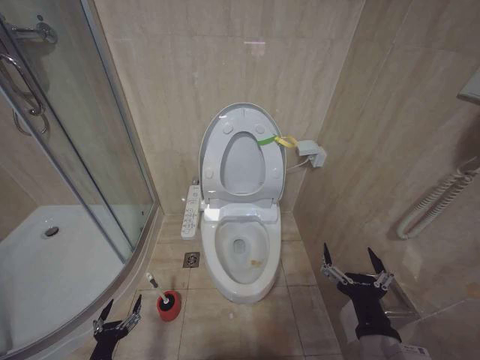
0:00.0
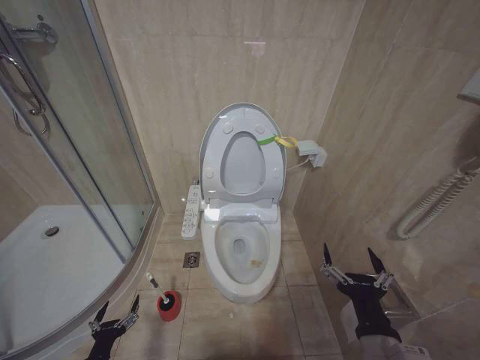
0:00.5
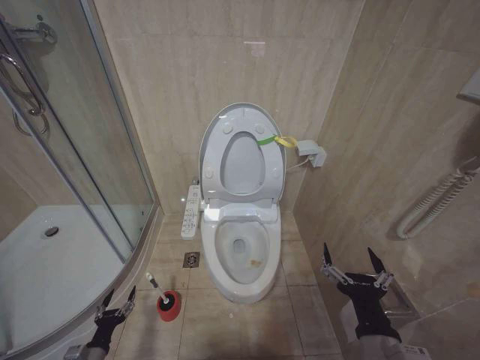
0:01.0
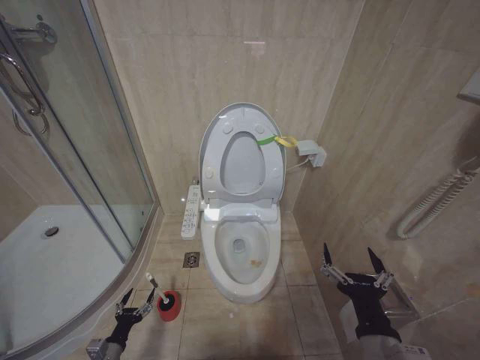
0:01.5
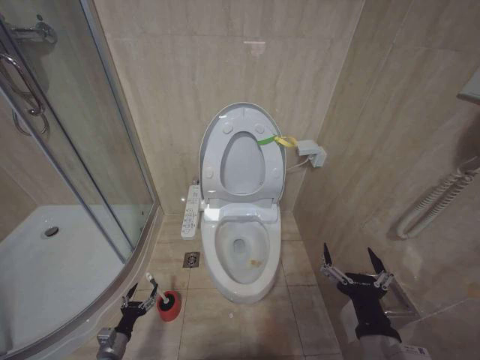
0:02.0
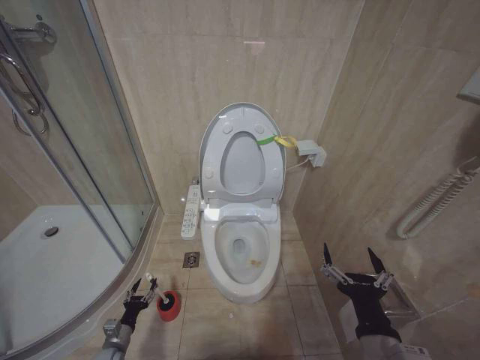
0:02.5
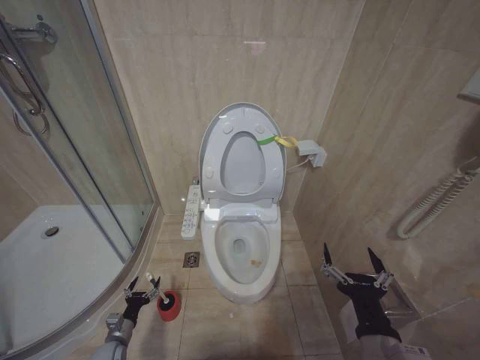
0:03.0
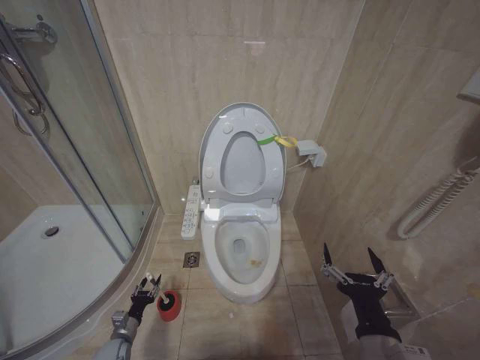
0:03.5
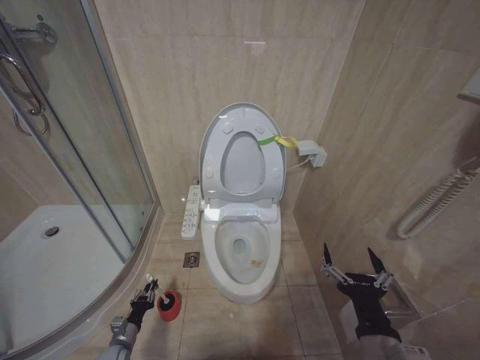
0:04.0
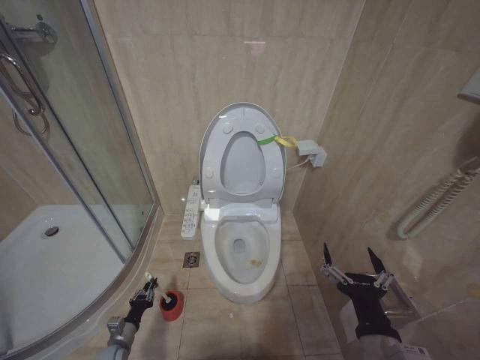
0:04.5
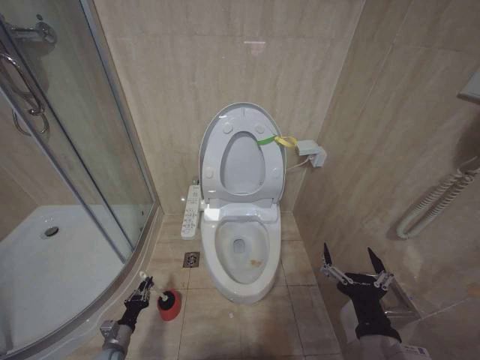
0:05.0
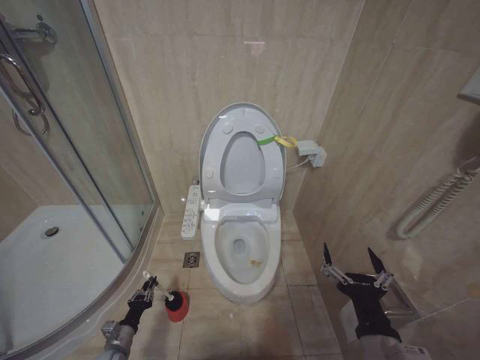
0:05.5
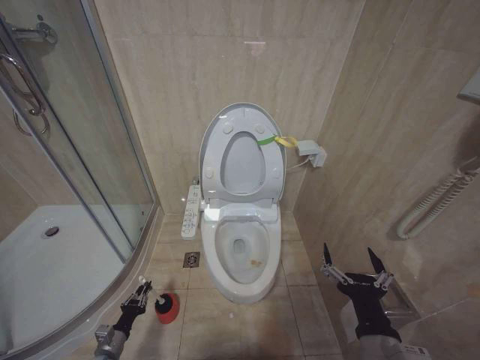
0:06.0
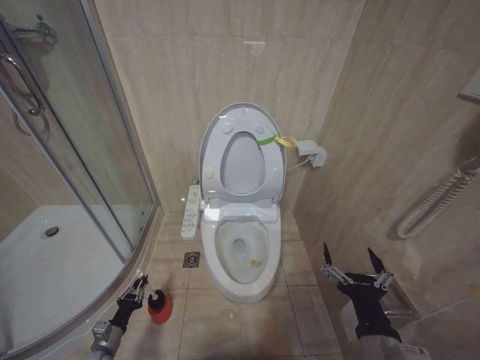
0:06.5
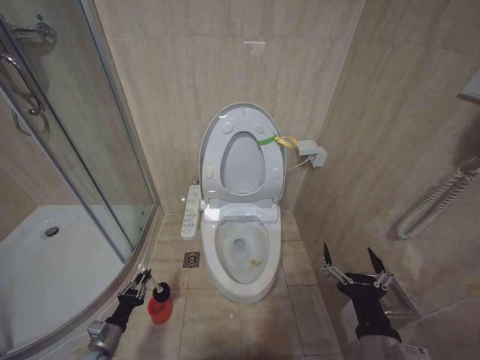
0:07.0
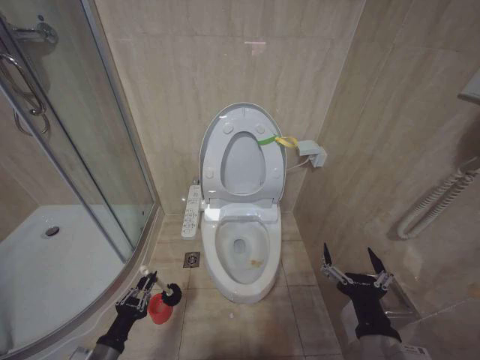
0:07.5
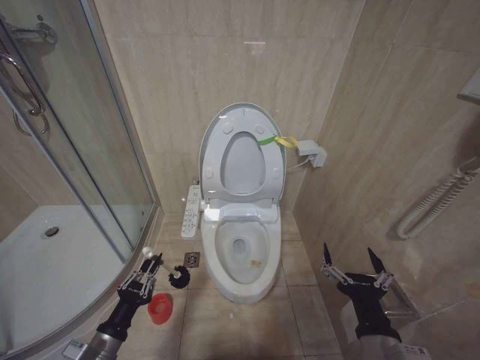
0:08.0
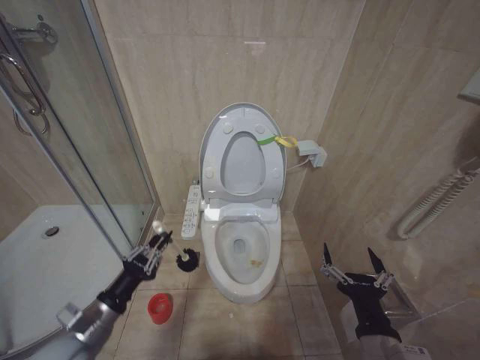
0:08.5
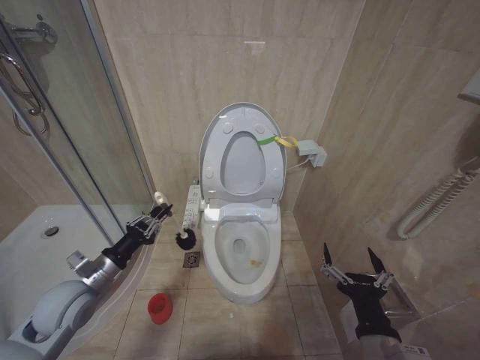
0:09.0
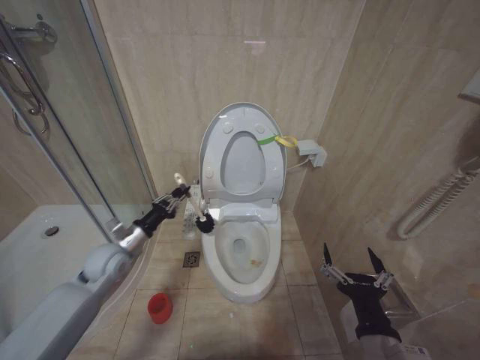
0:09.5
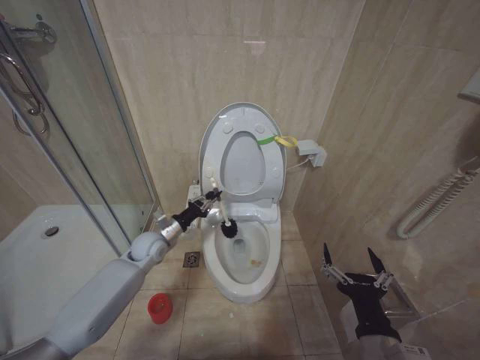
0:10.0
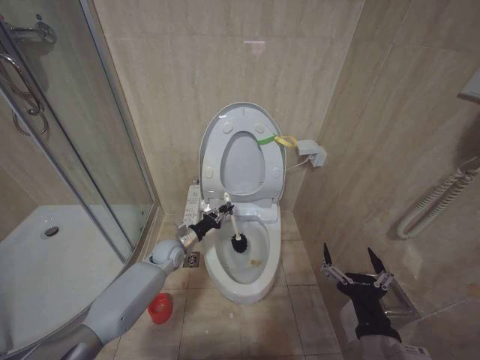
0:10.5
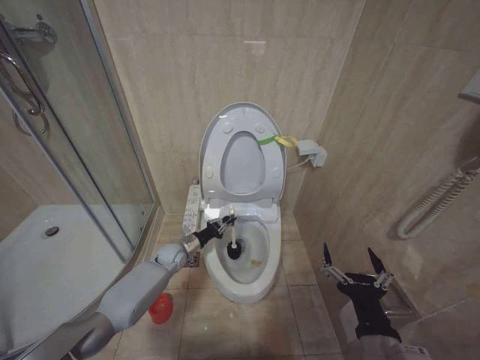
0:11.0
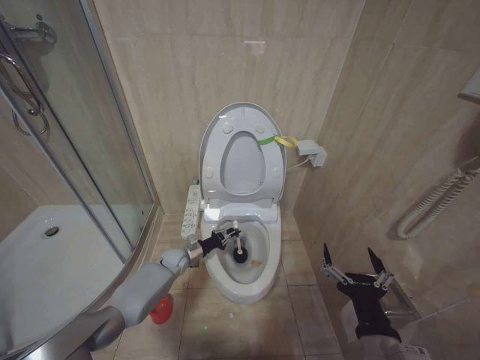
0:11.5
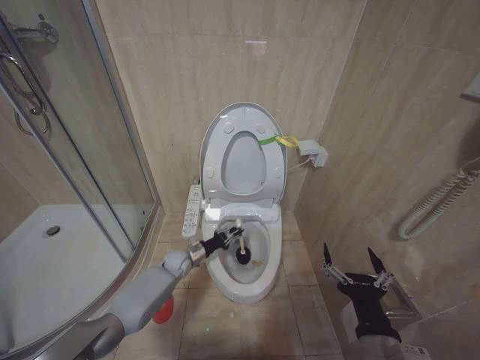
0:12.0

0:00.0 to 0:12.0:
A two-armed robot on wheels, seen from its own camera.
Task of the whole recording: Open the toilet lid, clean the toilet bowl with a toilet brush, close the toilet lid, and flush.
0:00.0 to 0:02.0: The left gripper travels downward and forward by roughly 15 cm.
0:02.0 to 0:04.0: The left gripper closes up.
0:04.0 to 0:06.0: The grippers make only small movements.
0:06.0 to 0:08.0: The left gripper travels upward by approximately 20 cm.
0:08.0 to 0:10.0: The left gripper shifts roughly 30 cm forward.
0:10.0 to 0:12.0: The left gripper travels downward by roughly 15 cm.

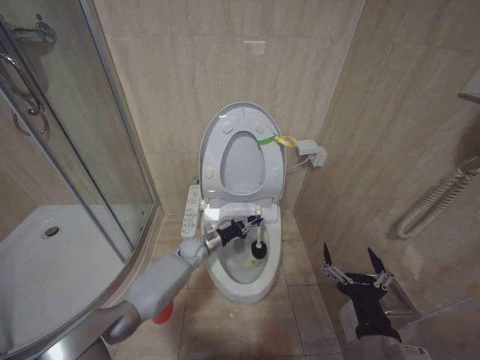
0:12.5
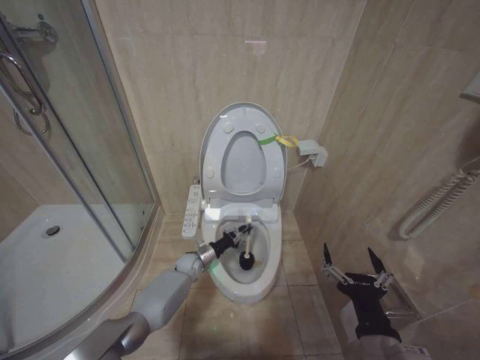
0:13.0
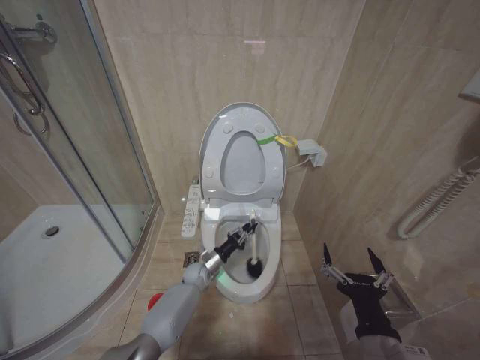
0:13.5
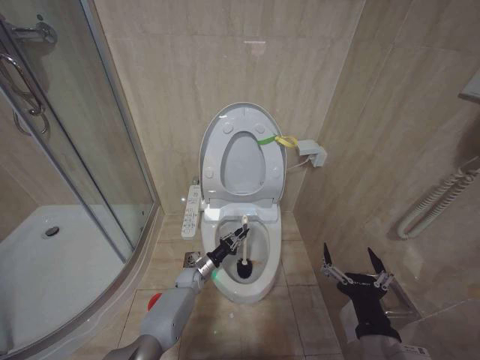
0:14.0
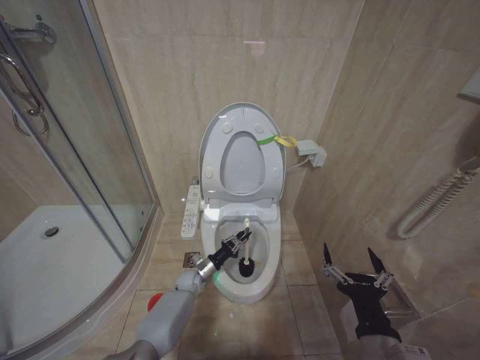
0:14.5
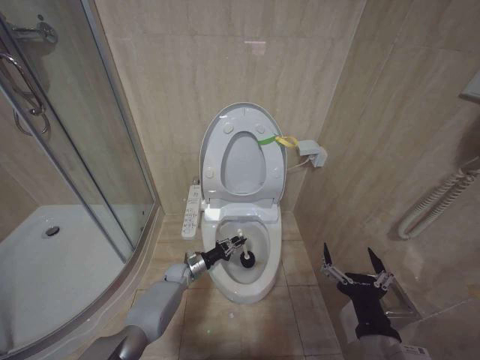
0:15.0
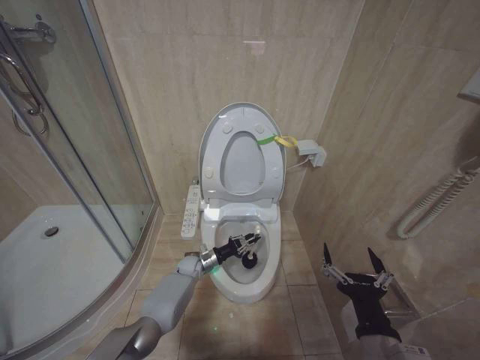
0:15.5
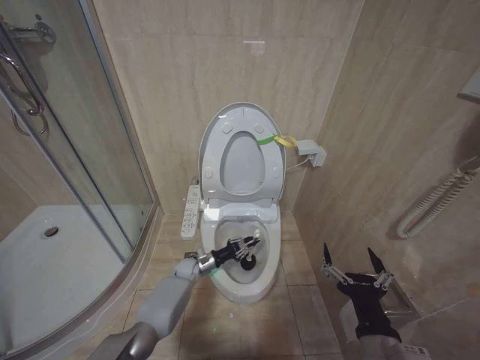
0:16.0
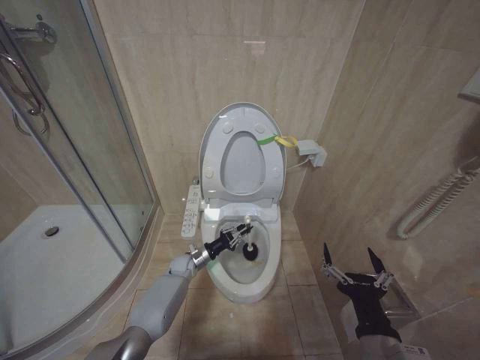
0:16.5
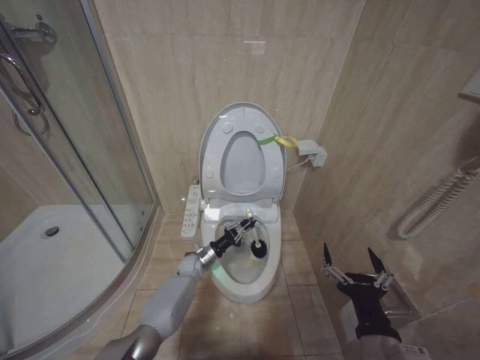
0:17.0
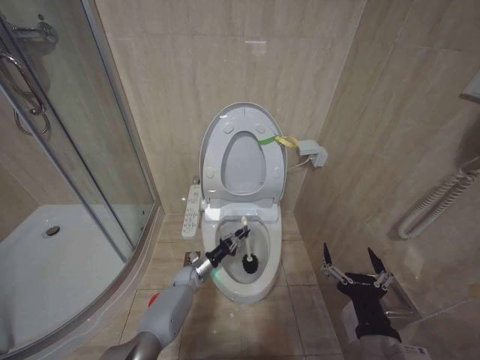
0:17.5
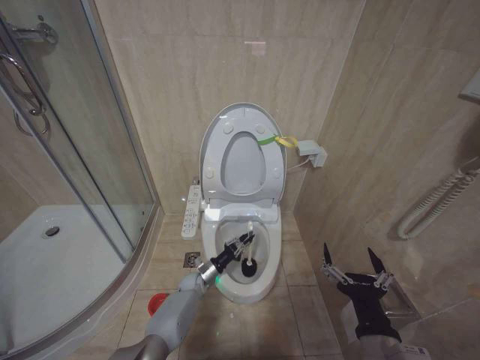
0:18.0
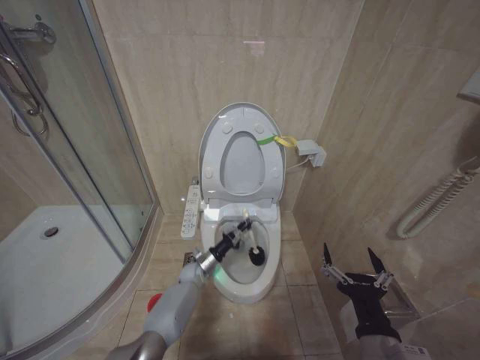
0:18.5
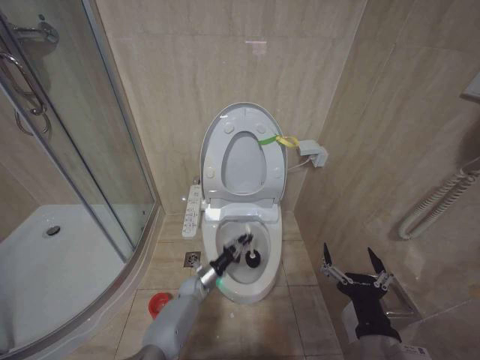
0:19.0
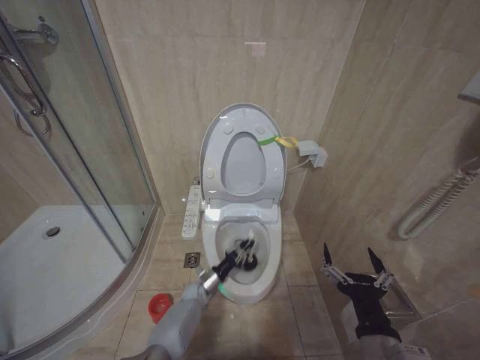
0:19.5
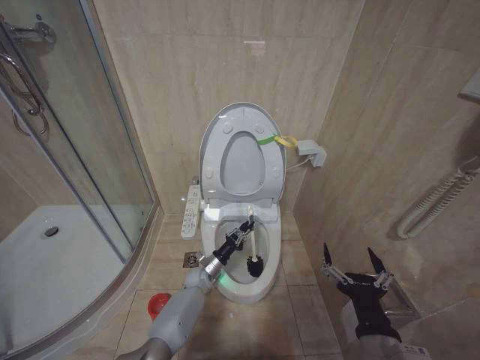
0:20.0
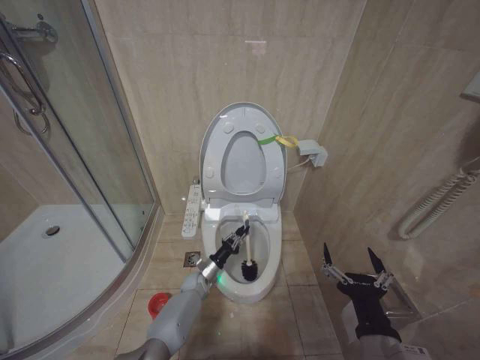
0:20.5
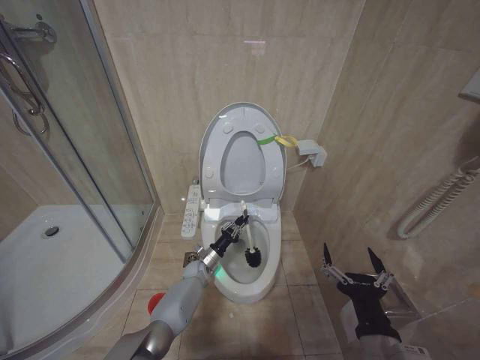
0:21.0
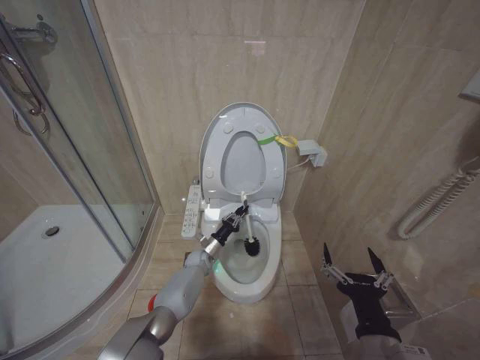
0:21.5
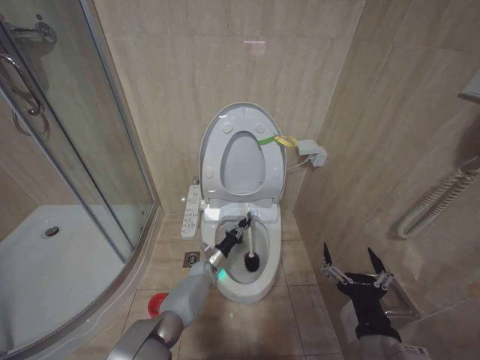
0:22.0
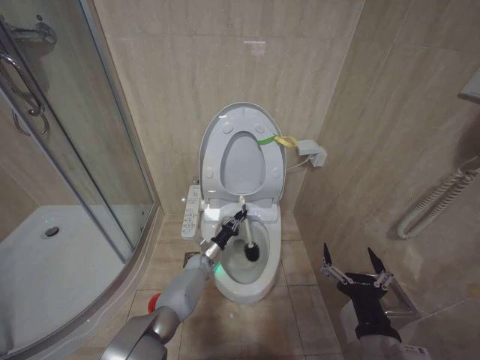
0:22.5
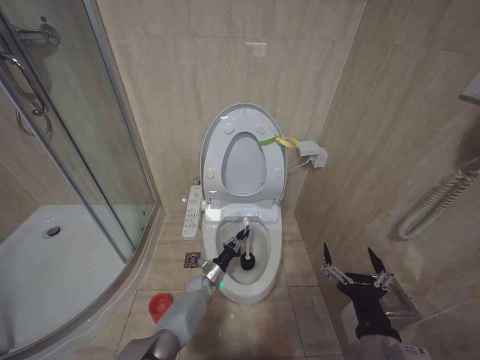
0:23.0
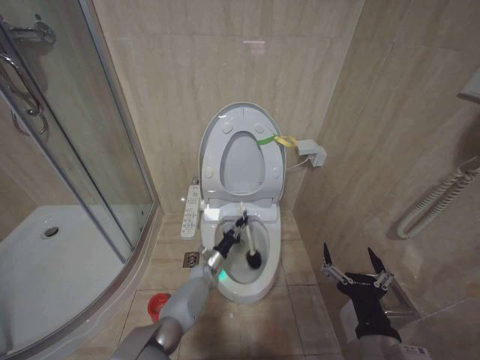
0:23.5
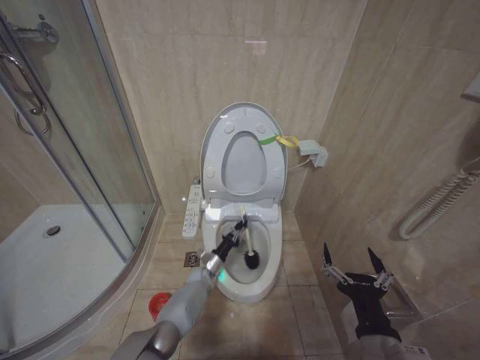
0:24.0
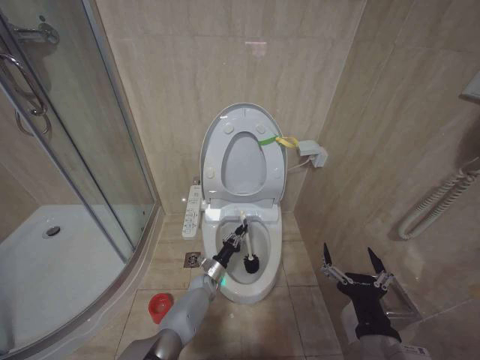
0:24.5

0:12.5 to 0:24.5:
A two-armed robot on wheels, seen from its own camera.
Task of the whole recording: Open the toilet lid, clean the toilet bowl with a toilet brush, close the toilet lid, and flush.
0:12.5 to 0:14.5: The left gripper moves downward and backward, roughly 15 cm.
0:14.5 to 0:16.5: The left gripper ends up some 5 cm from where it was.
0:18.5 to 0:20.5: The left gripper shifts roughly 5 cm downward.
0:20.5 to 0:22.5: The left gripper goes some 5 cm forward.
0:22.5 to 0:24.5: The left gripper changes place by some 5 cm.

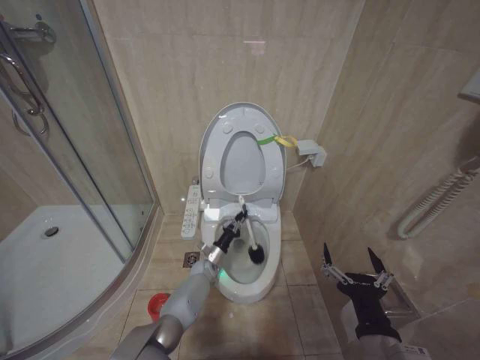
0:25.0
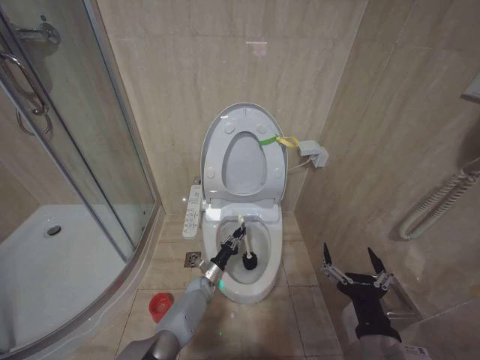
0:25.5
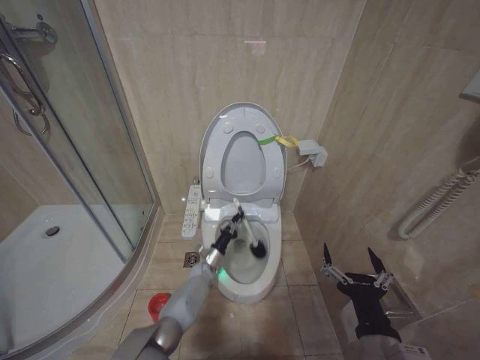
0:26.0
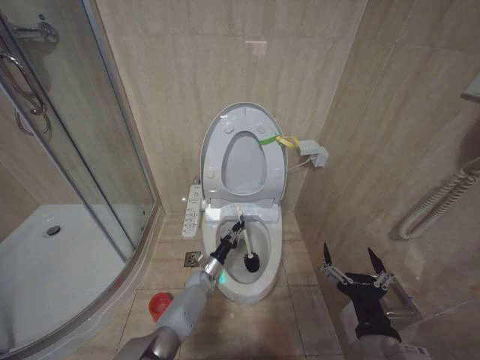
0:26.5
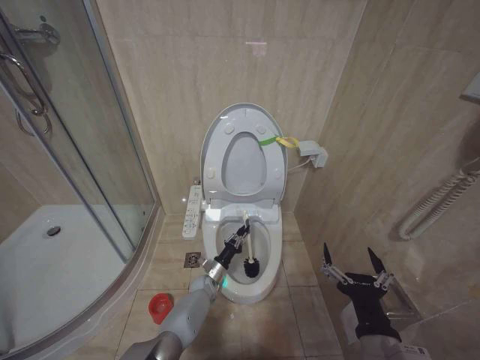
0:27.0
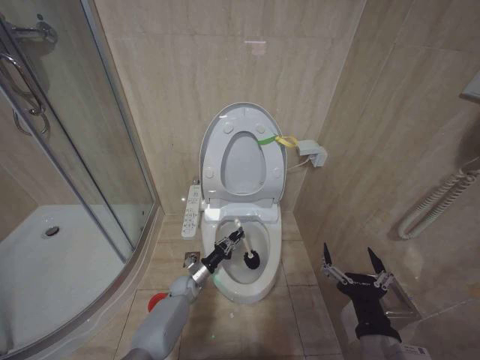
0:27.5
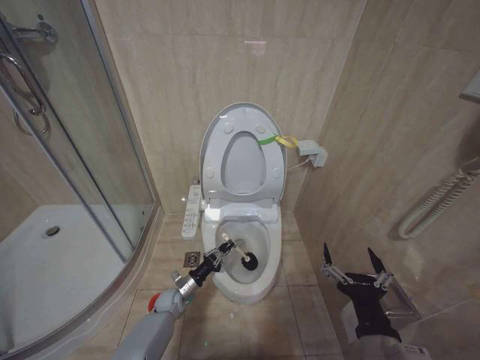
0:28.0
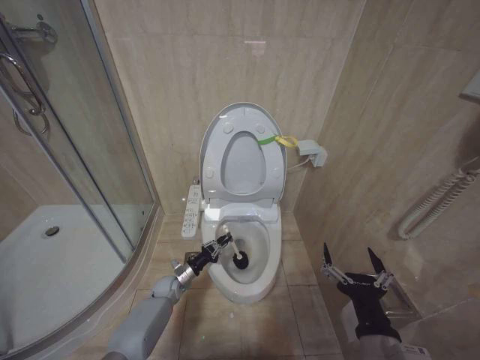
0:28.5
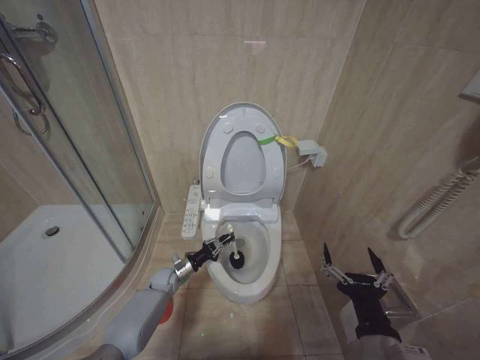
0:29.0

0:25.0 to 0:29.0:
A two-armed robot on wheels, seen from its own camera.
Task of the whole recording: Open the toilet lid, clean the toilet bowl with a toilet brush, close the toilet lid, and flush.
0:25.0 to 0:27.0: The left gripper moves up and down over some 5 cm, changing direction 2 times.
0:27.0 to 0:29.0: The left gripper heads to the left, covering approximately 15 cm.
